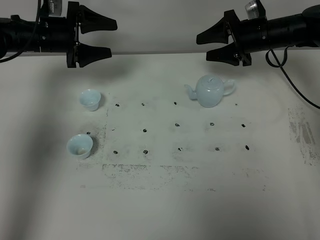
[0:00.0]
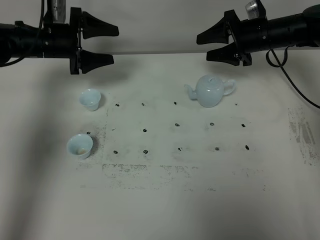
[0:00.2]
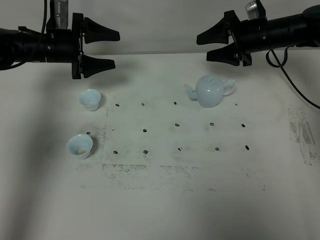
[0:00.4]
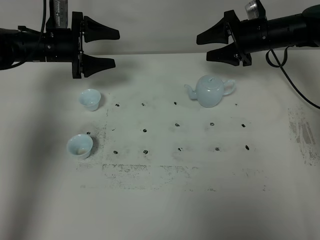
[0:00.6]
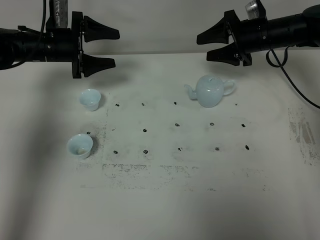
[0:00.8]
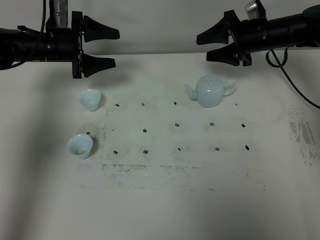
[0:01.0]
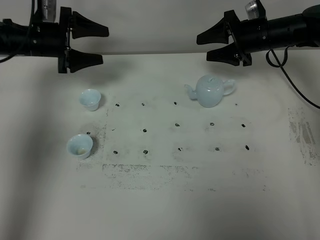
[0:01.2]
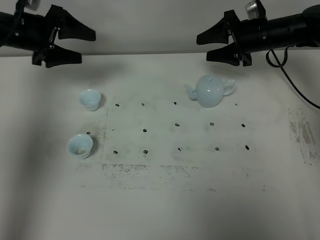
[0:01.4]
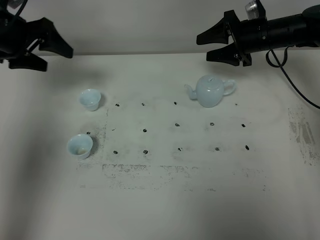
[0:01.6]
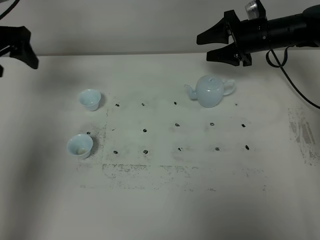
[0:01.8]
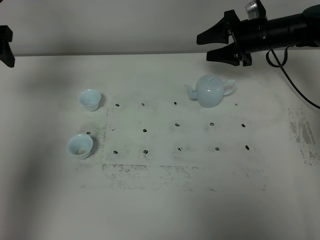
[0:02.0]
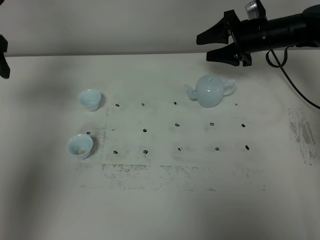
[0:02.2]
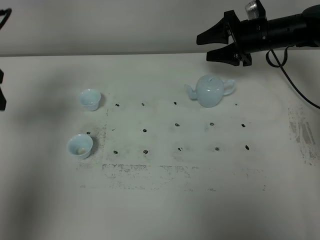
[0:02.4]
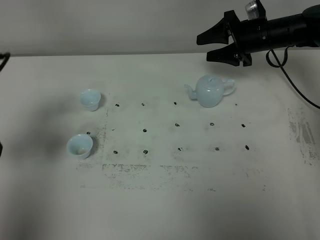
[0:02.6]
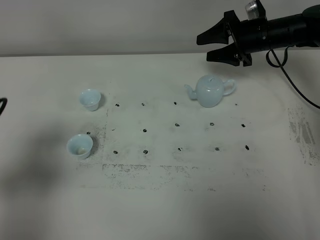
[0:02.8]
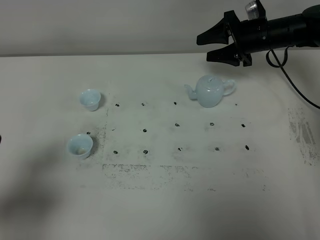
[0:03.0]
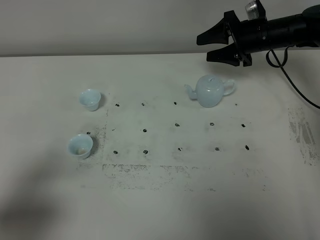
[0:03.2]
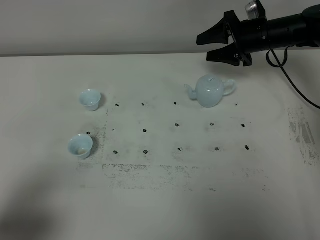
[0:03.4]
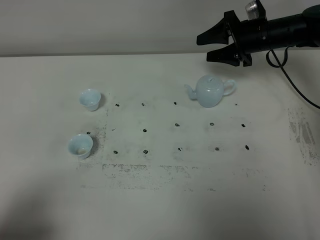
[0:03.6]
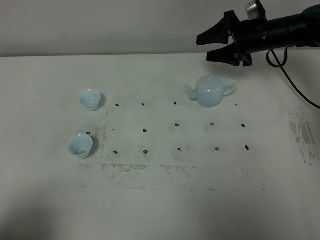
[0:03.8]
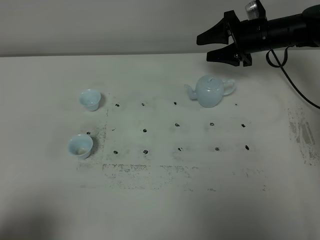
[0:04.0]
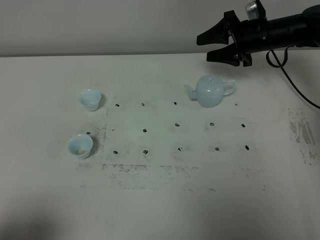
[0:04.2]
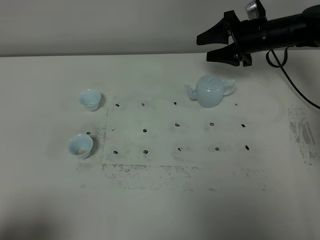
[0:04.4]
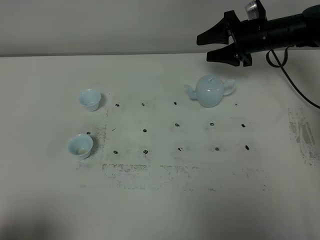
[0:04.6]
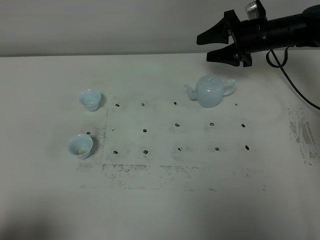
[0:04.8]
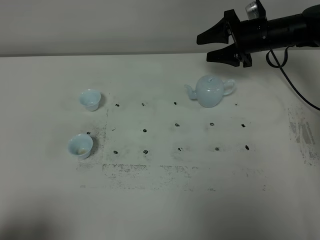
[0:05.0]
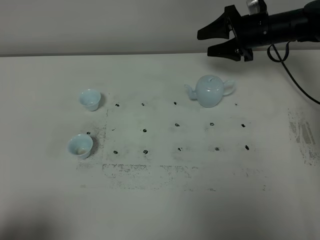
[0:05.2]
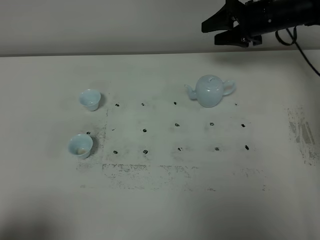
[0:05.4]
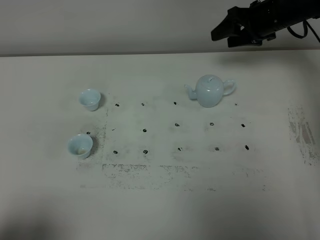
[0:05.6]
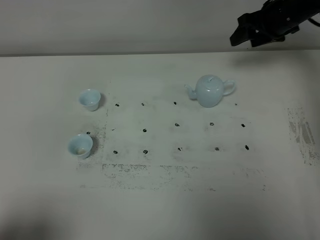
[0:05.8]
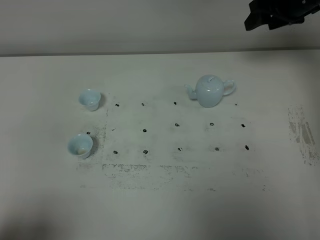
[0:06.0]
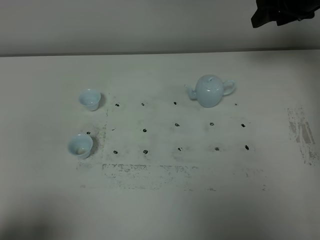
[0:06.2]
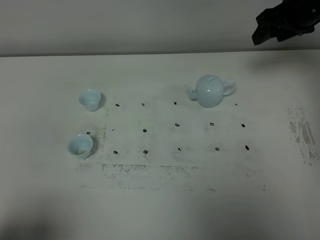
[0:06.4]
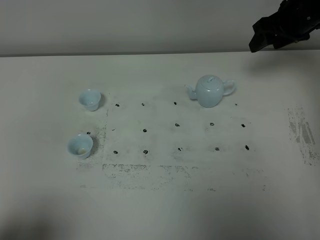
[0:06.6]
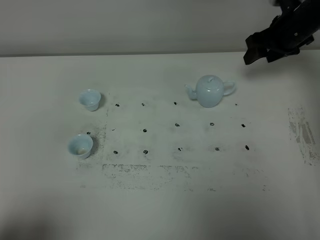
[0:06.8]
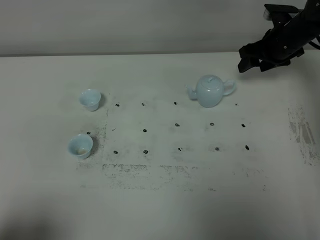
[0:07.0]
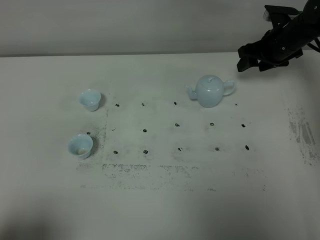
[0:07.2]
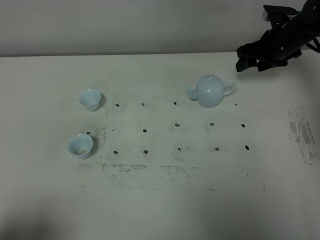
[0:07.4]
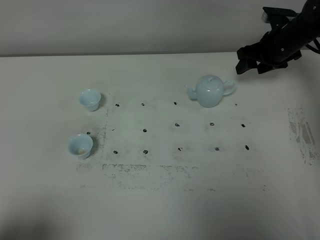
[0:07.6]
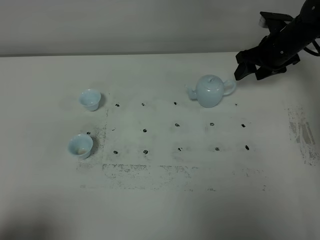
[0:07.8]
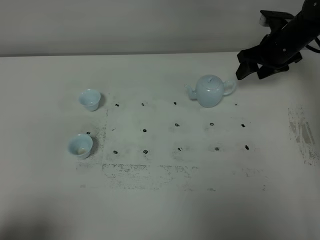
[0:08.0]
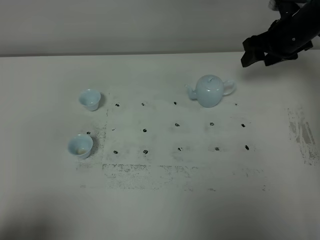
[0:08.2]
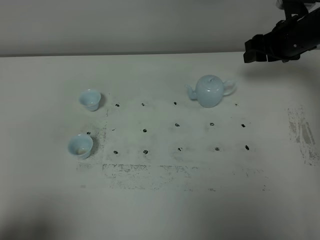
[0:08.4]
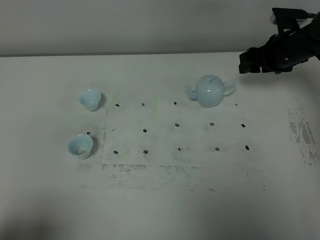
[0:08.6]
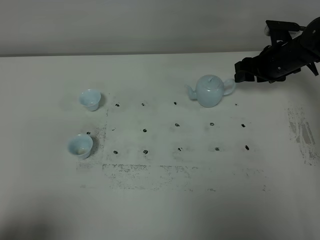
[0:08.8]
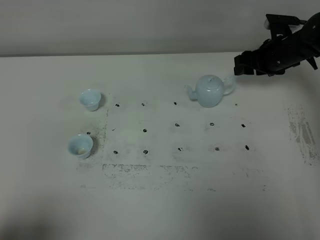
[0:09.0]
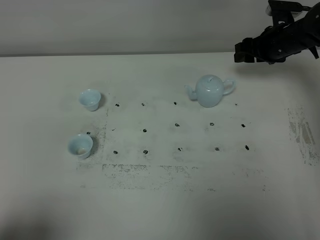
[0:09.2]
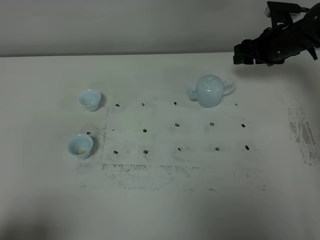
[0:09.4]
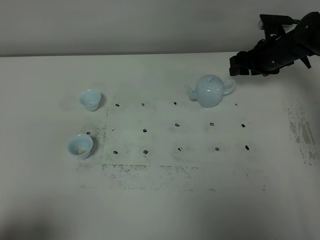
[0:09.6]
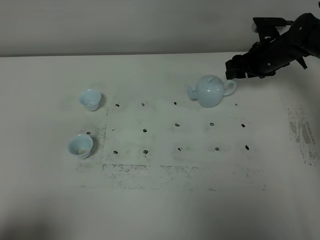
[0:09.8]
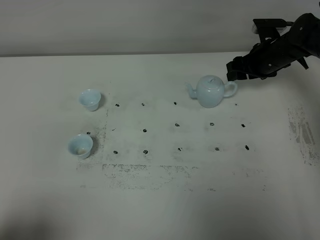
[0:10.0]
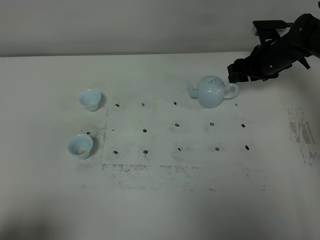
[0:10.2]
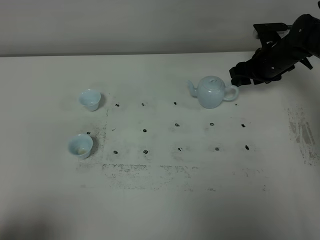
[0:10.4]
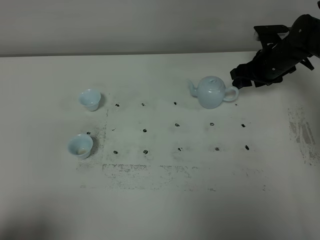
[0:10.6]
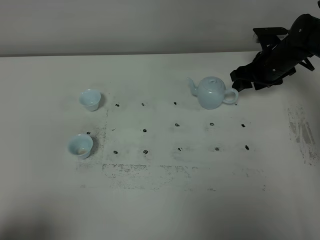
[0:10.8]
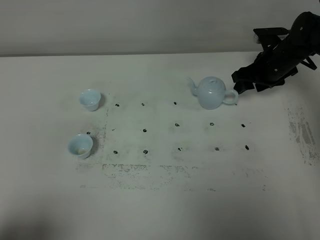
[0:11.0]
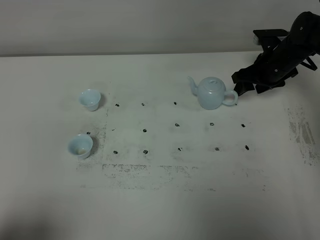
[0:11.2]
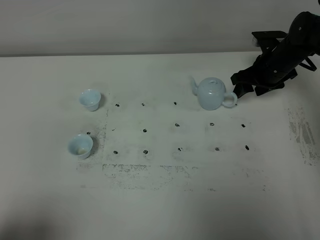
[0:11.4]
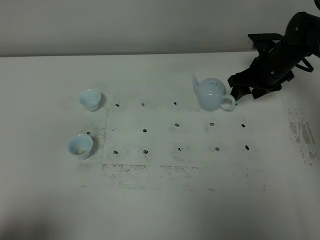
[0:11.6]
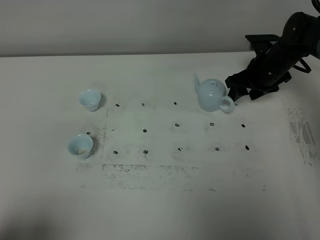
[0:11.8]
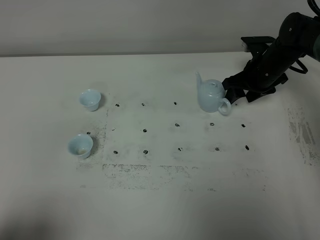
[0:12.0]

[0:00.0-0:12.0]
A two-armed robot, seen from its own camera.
Task of the whole recording: grasp the blue porcelain teapot and pour the tea into the two blue porcelain teacups one by one, put the blue porcelain teapot back in its original place.
0:00.0 to 0:01.6: The left gripper is displaced upward and to the left by about 10 cm.
0:01.6 to 0:03.0: The left gripper shifts some 30 cm backward.
0:03.0 to 0:04.4: The left gripper travels backward by some 15 cm.
0:04.4 to 0:06.0: The right gripper moves upward, some 10 cm.
0:06.0 to 0:07.6: The right gripper travels downward by about 15 cm.
0:07.6 to 0:09.0: The right gripper moves some 5 cm upward and comes back.
0:09.0 to 0:10.4: The grippers make only small movements.
0:10.4 to 0:12.0: The grippers make only small movements.

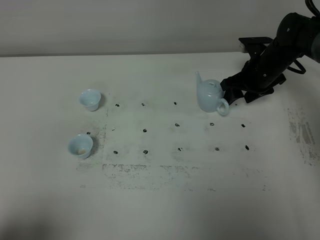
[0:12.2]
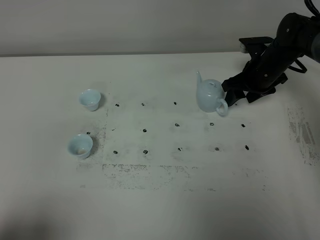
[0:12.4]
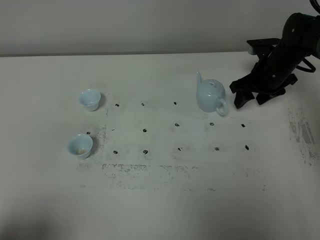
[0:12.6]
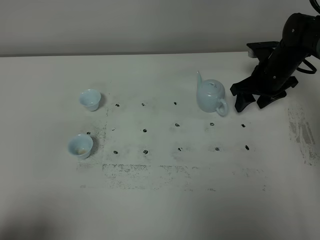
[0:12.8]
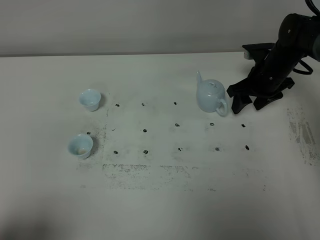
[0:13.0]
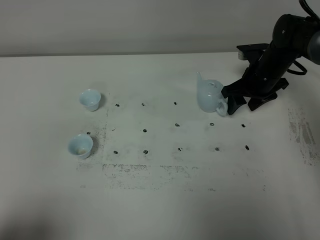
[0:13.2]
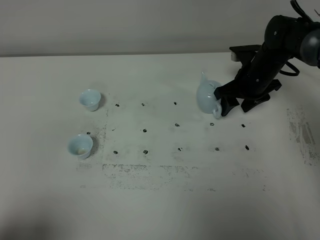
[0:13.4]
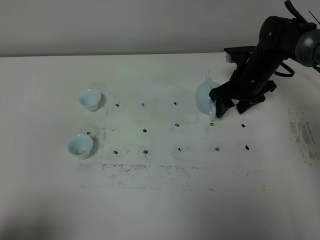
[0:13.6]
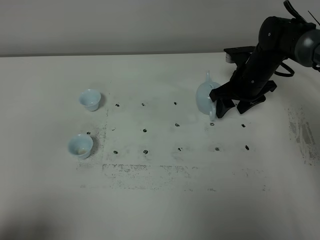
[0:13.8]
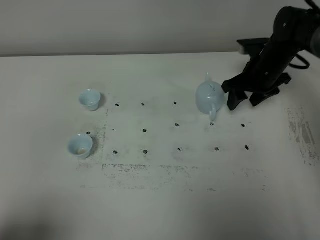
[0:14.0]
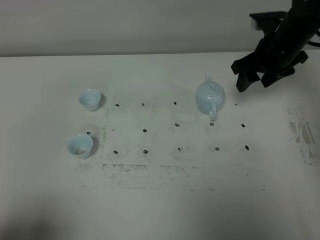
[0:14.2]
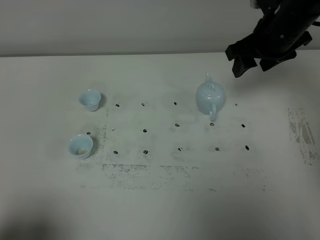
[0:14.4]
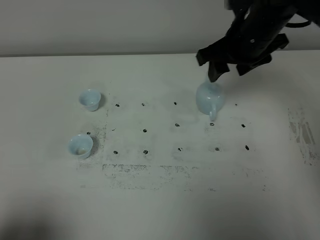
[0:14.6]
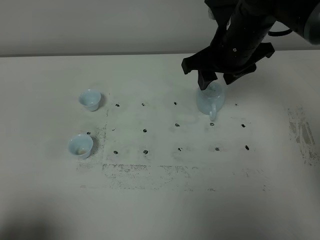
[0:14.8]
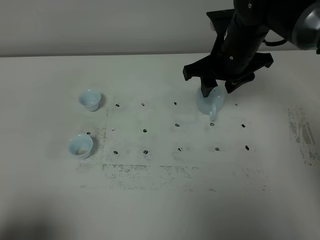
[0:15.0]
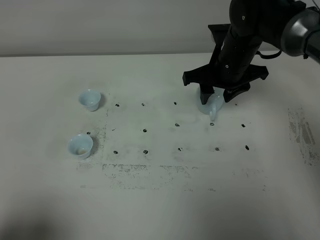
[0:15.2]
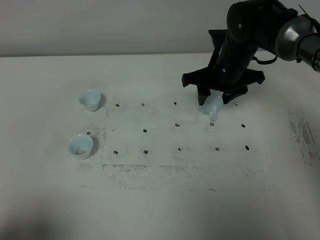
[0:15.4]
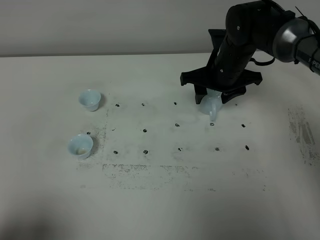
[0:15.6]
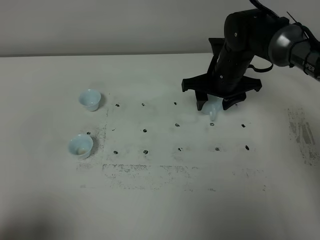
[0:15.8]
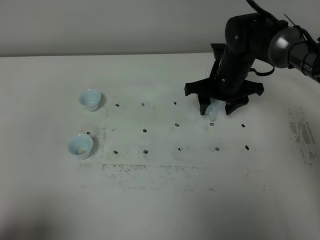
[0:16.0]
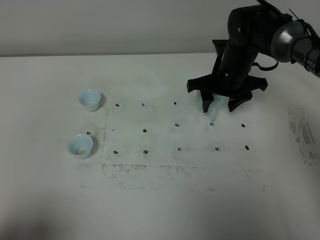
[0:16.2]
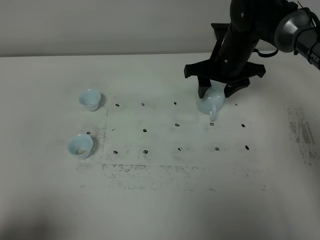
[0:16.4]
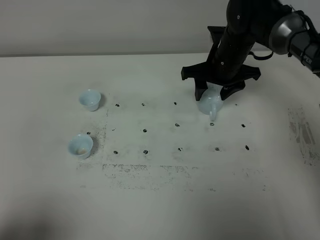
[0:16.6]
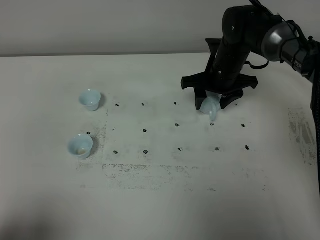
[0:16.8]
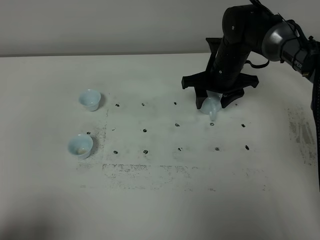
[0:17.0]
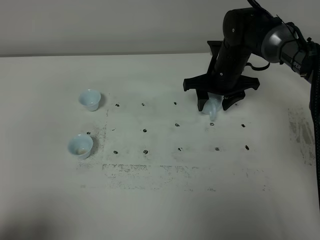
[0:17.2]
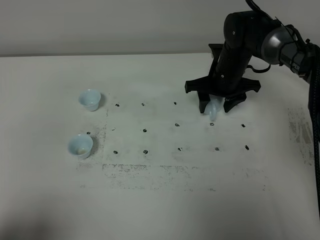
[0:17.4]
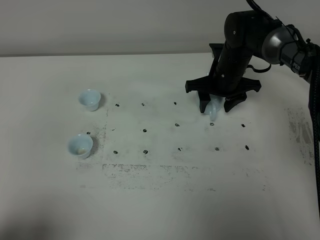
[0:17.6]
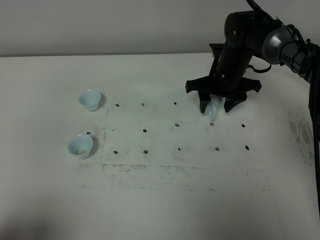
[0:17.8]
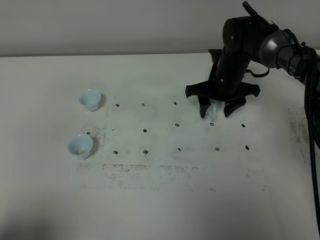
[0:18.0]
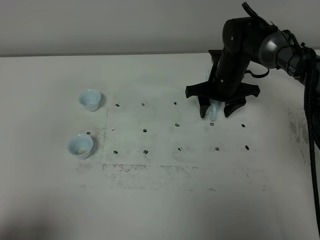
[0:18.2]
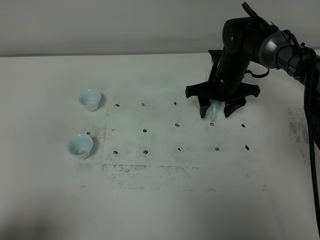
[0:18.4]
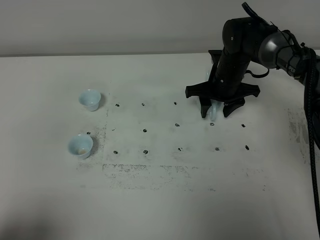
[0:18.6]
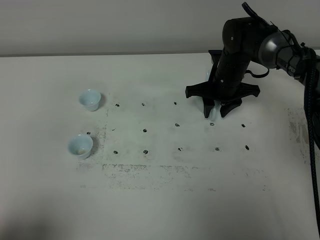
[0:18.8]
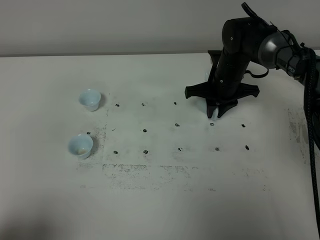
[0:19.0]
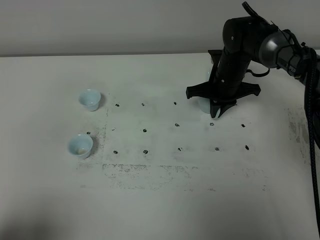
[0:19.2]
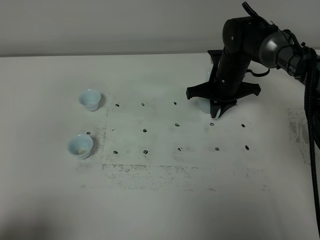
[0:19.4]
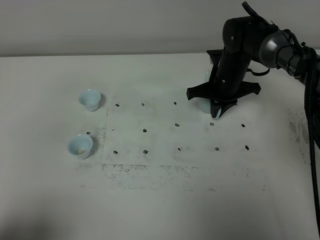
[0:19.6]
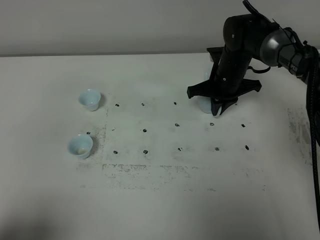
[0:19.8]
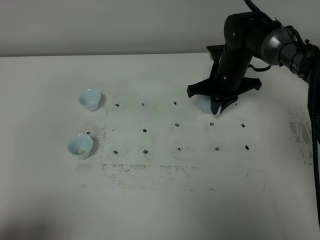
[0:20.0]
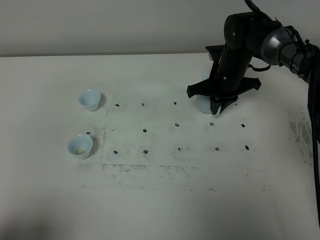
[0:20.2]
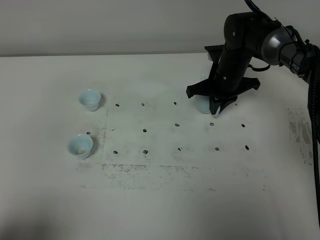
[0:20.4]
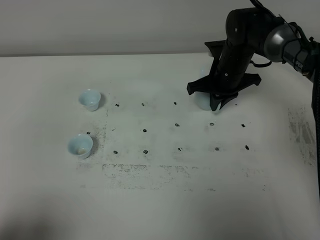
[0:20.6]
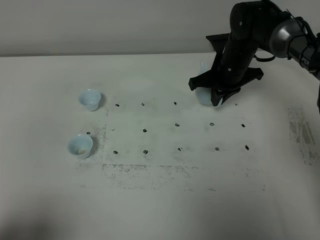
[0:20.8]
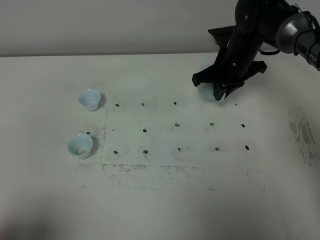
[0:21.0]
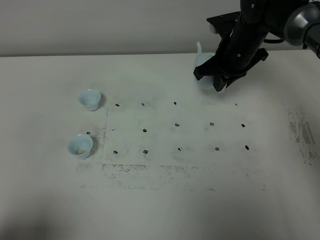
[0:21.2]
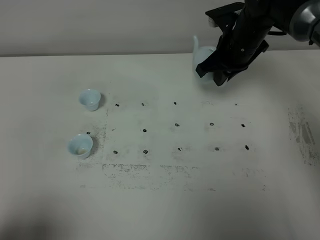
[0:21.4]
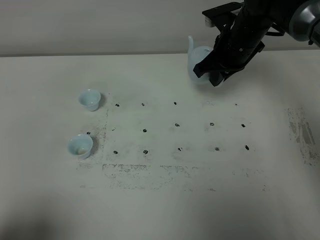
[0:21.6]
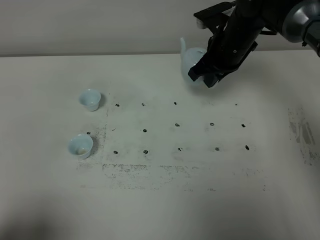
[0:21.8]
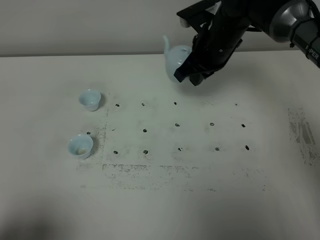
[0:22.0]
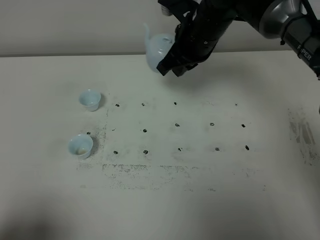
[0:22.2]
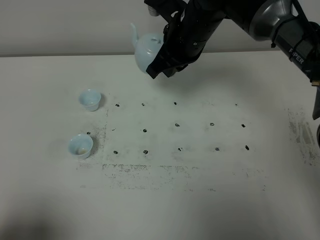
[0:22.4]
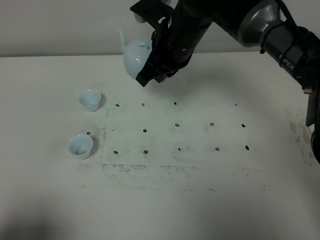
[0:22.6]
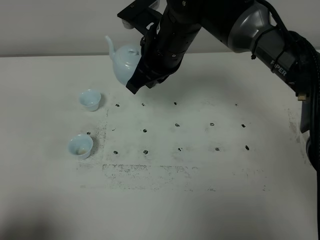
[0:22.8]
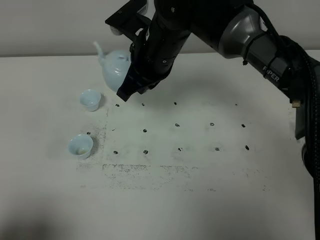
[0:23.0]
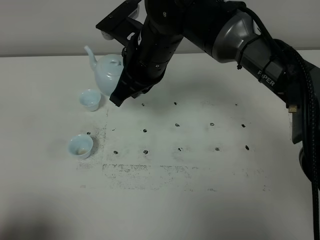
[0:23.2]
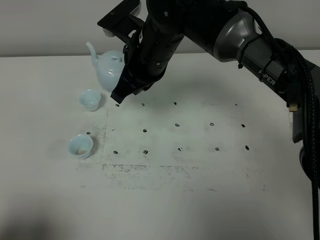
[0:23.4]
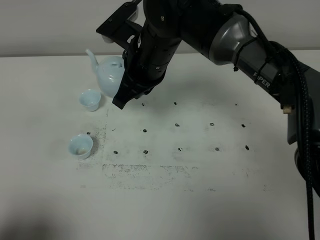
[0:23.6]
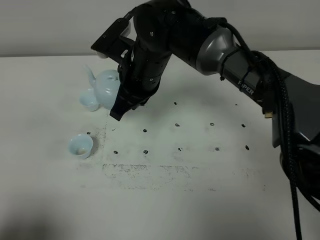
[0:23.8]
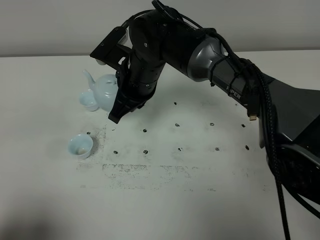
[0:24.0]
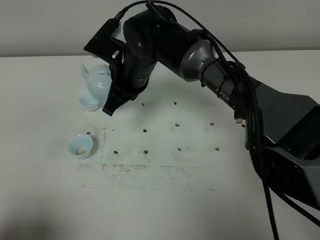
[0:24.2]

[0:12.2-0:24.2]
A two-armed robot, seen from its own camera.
Task of the whole recording: grasp the blue porcelain teapot and pour the tea into the two blue porcelain teacups one by one, put the blue porcelain teapot back in its original place.
Step, 0:12.2 to 0:20.8: Pick up the teapot with the right gripper.
0:12.2 to 0:13.8: The grippers stay close to where they were, moving slightly.
0:13.8 to 0:15.2: The right gripper goes roughly 10 cm upward and to the left.
0:15.2 to 0:16.6: The grippers move only a little.
0:16.6 to 0:18.2: The right gripper shifts roughly 5 cm downward.
0:18.2 to 0:19.8: The right gripper closes its fingers.
0:19.8 to 0:21.2: The right gripper moves upward, about 5 cm.
0:21.2 to 0:22.6: The right gripper is displaced to the left, upward and backward by some 15 cm.
0:22.6 to 0:24.2: The right gripper moves to the left and downward, approximately 10 cm.
